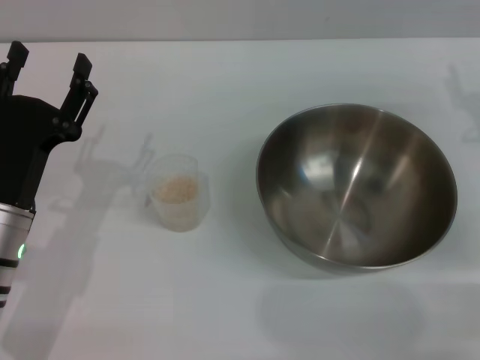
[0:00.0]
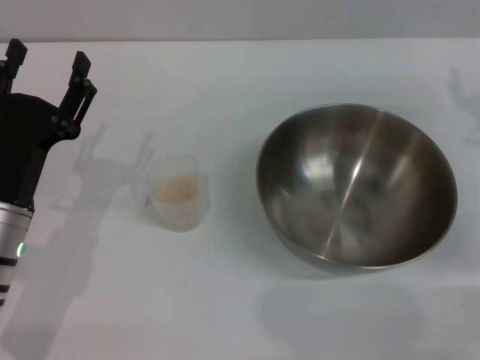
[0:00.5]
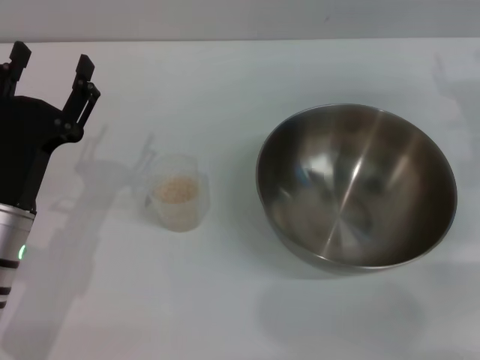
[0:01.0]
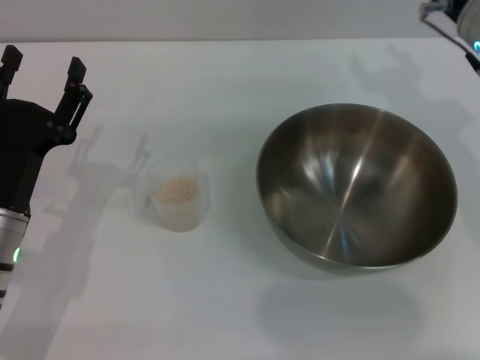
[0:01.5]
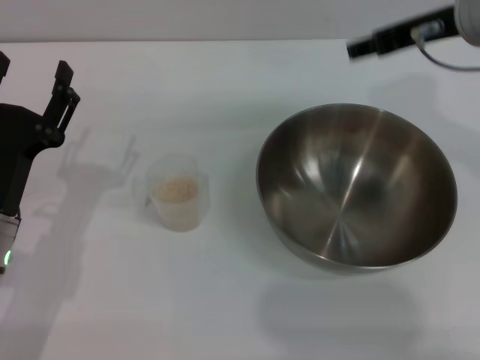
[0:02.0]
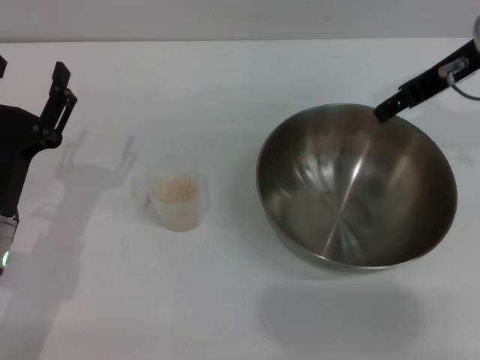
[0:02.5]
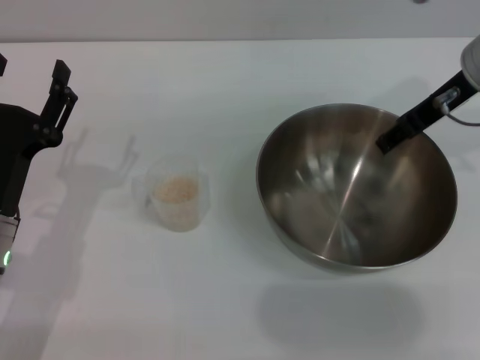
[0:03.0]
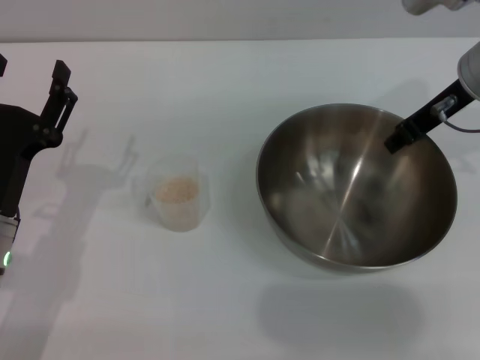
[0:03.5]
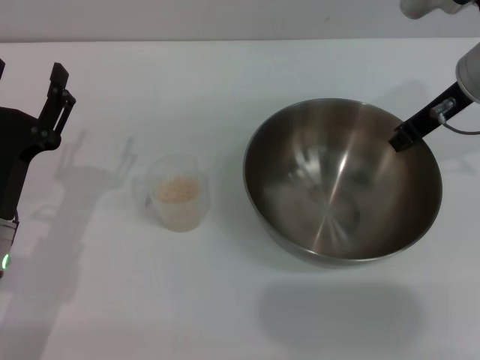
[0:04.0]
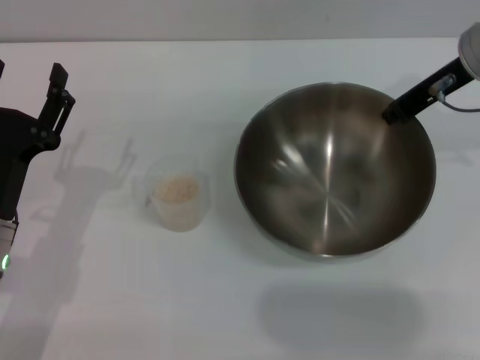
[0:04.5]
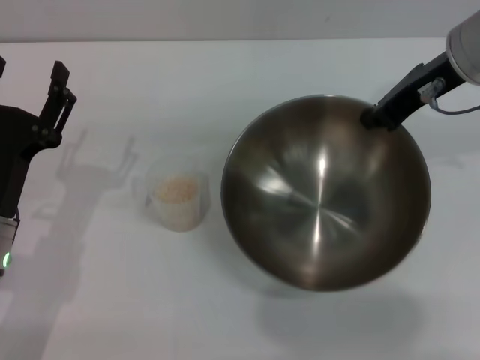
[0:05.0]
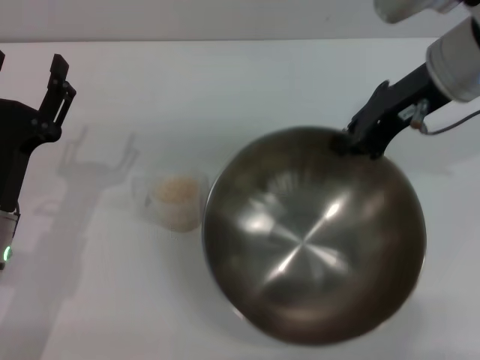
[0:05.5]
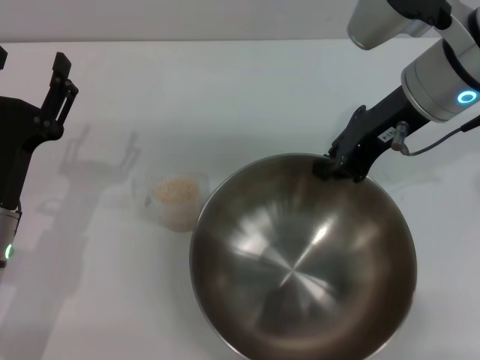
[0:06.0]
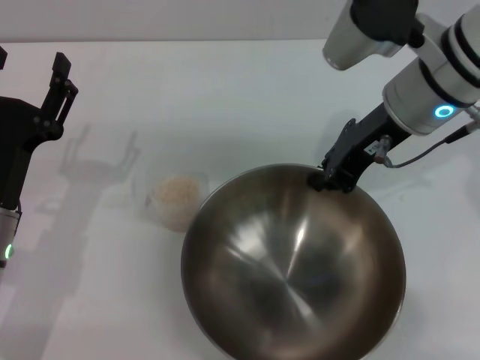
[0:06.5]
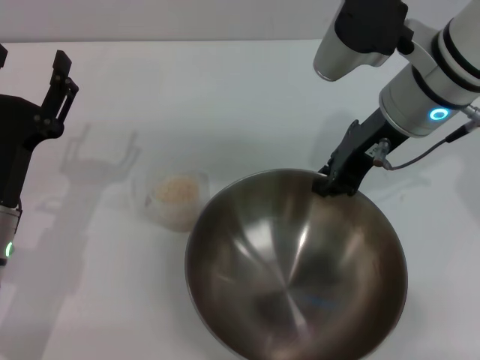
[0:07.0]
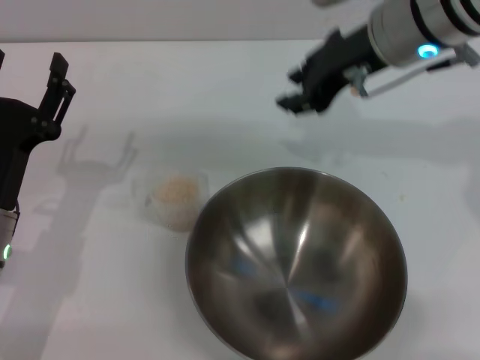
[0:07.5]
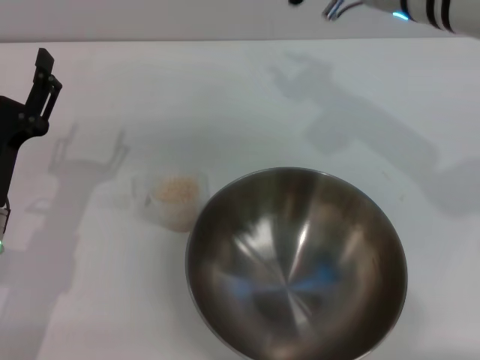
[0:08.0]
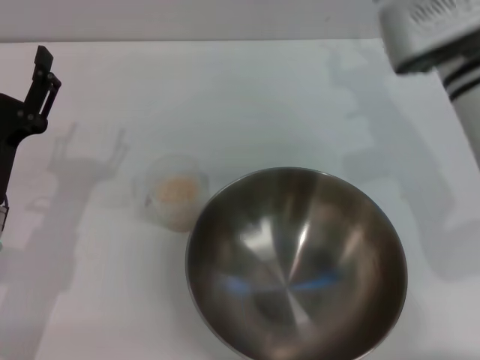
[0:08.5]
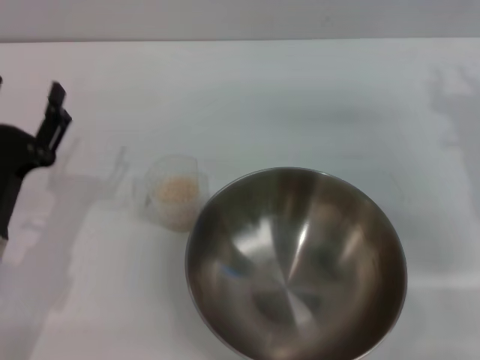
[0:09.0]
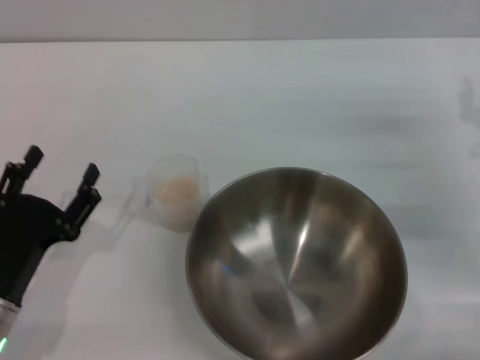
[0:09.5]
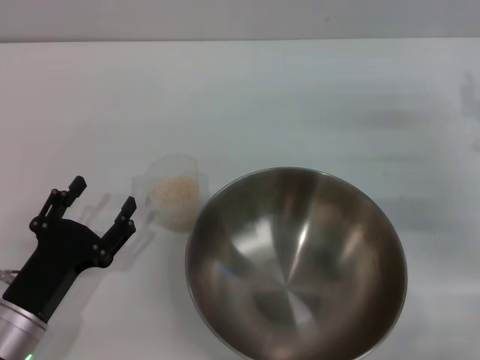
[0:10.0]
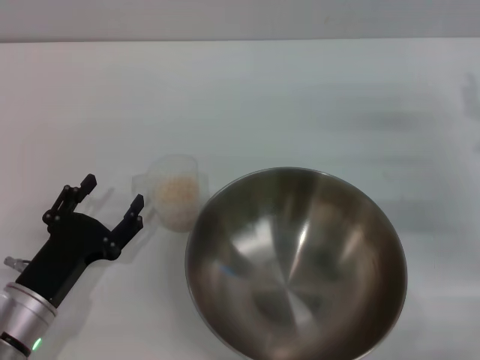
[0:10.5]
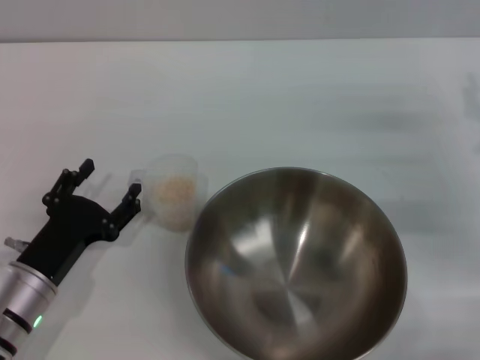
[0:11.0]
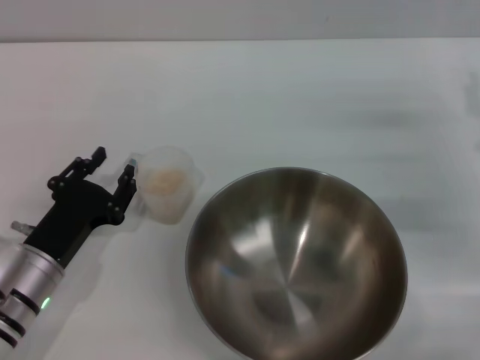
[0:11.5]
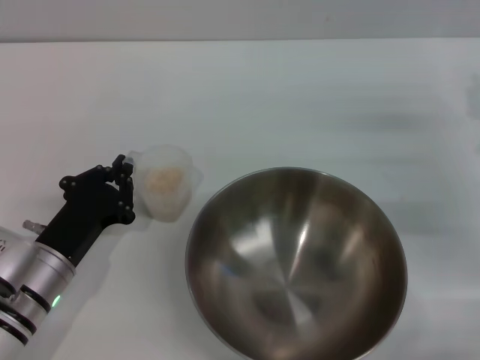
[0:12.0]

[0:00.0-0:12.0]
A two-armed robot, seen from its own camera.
Task of the whole recording: Place the bowl in the middle of the table with one hand and pour the rice from the grain cup into it with the other hand.
Step, 0:00.0 to 0:05.0: Pick up the bowl with the right gripper.
Step, 0:05.5 to 0:07.5: Place the bowl in the center of view with the right gripper.
0:00.0 to 0:02.0: The right gripper travels upward and to the left by roughly 15 cm.
0:02.0 to 0:04.0: The right gripper heads downward, covering approximately 5 cm, and closes.
0:04.0 to 0:06.0: The right gripper moves to the left, roughly 5 cm.
0:06.0 to 0:08.0: The right gripper opens its fingers.
0:08.0 to 0:10.0: The right gripper shifts approximately 25 cm to the right and downward. The left gripper travels backward and downward by about 10 cm.
0:10.0 to 0:12.0: The left gripper travels forward by roughly 5 cm, and closes.

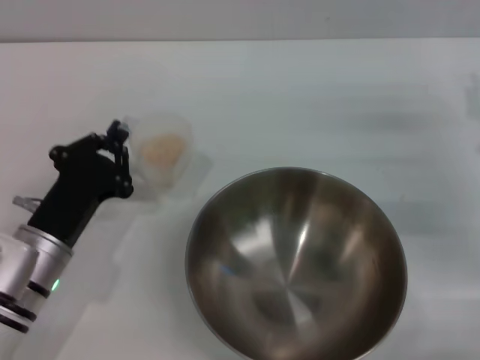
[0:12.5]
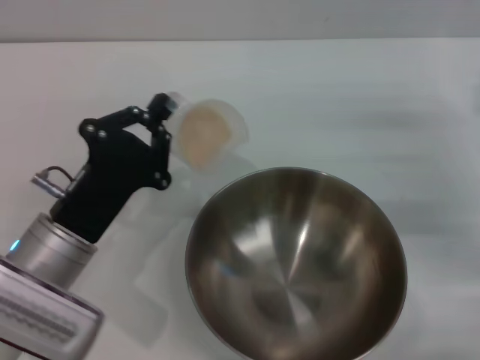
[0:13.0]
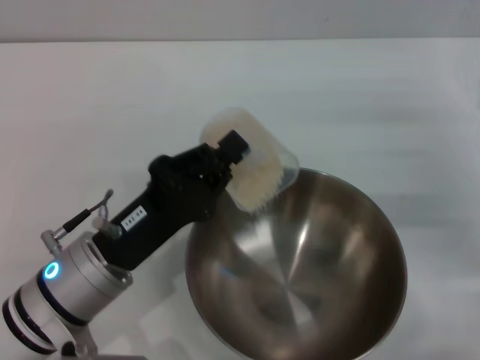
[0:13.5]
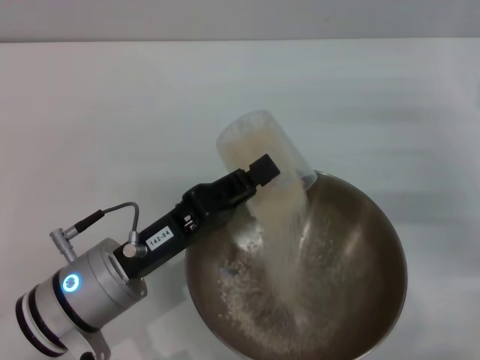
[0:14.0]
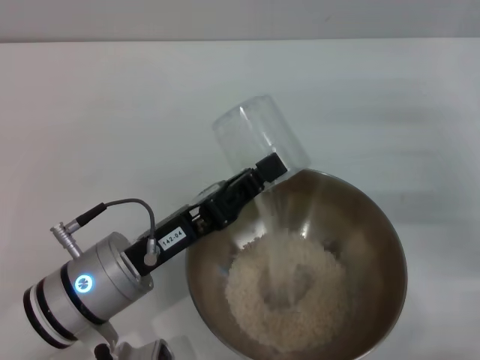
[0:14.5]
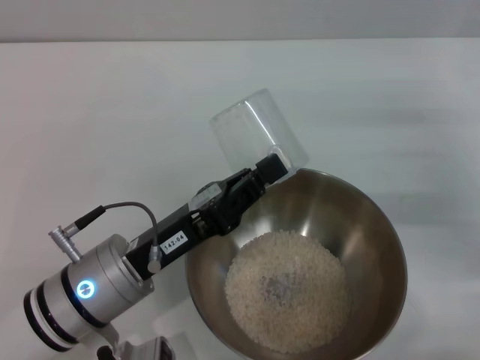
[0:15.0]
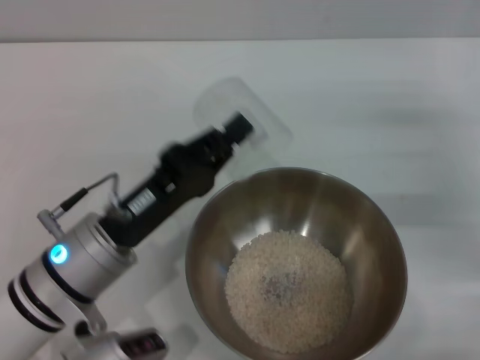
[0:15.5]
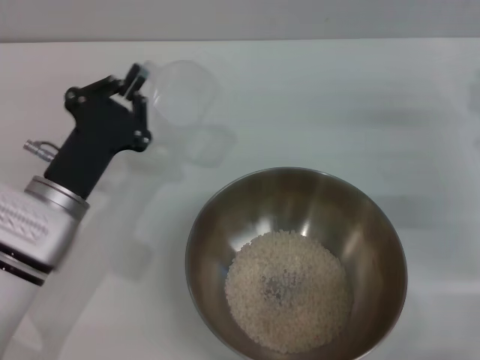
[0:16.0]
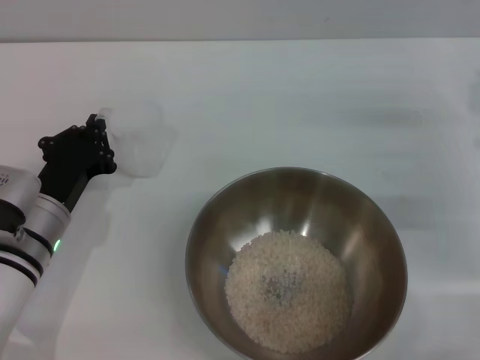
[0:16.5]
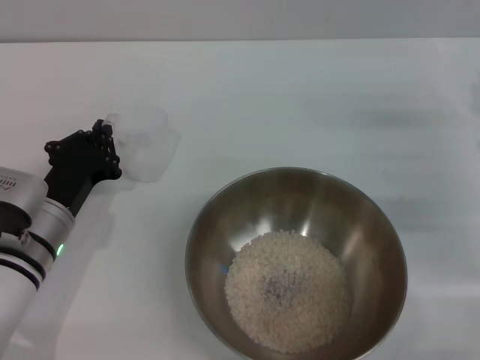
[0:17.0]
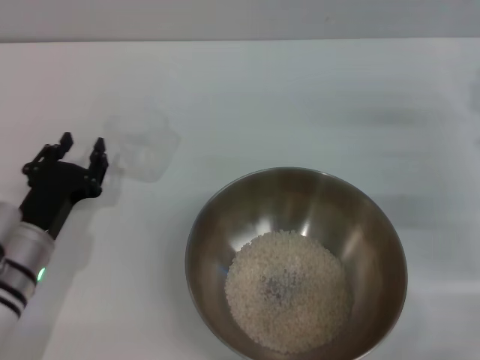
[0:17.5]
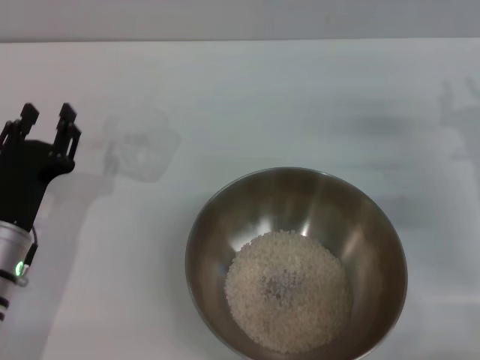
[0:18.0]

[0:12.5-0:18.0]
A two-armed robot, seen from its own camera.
Task of the whole recording: Place the bowl in the middle of the table with one hand and pour the rice from the grain cup into it with the other hand.
Step, 0:13.0 to 0:14.5: Pour the rice from the cup into the bowl with the left gripper.
Step, 0:15.0 to 0:17.0: Place the cup on the table with the left gripper.
0:12.5 to 0:14.5: The left gripper is displaced to the right by approximately 5 cm.
0:14.5 to 0:16.0: The left gripper shifts by some 5 cm.
0:16.0 to 0:18.0: The left gripper changes place by about 5 cm, and opens its fingers.
